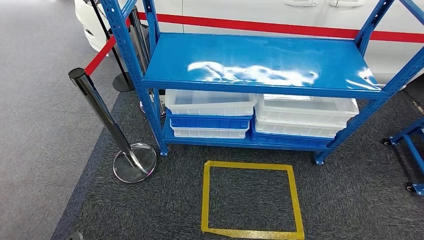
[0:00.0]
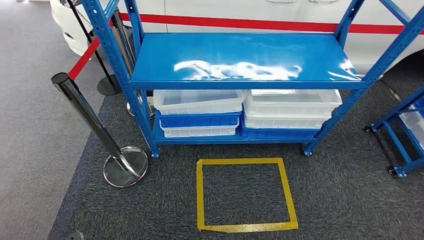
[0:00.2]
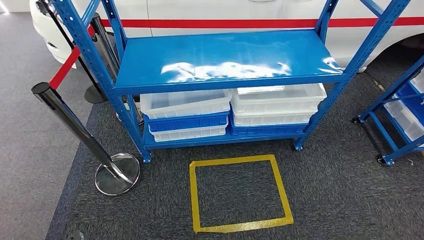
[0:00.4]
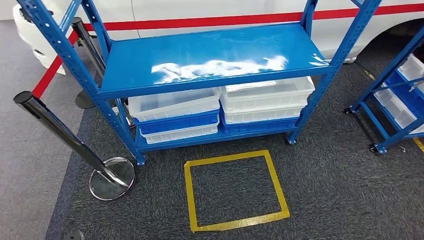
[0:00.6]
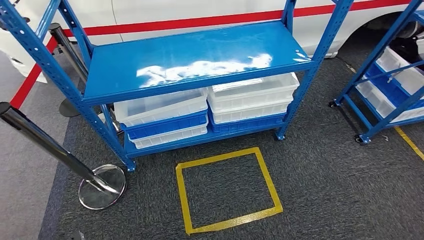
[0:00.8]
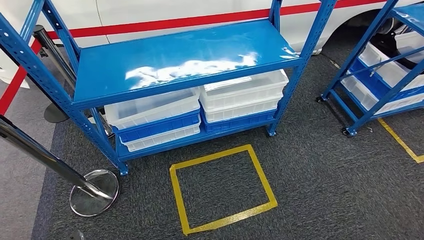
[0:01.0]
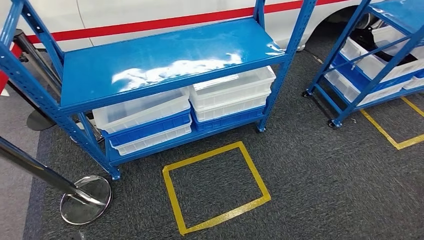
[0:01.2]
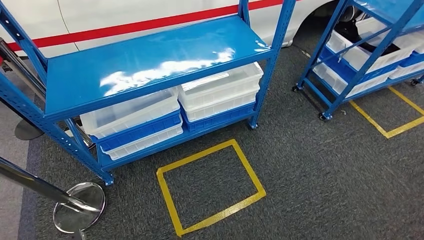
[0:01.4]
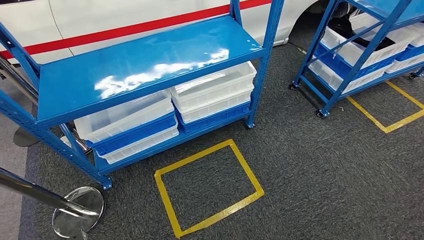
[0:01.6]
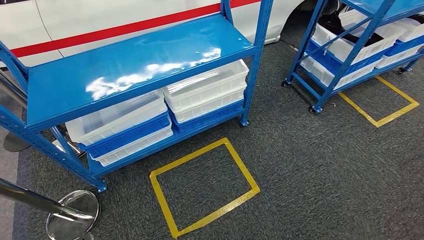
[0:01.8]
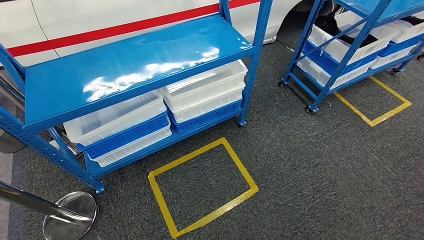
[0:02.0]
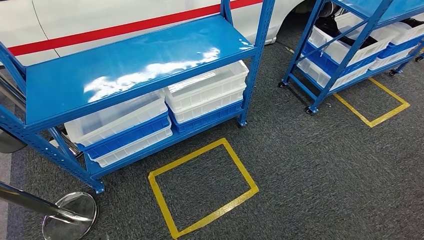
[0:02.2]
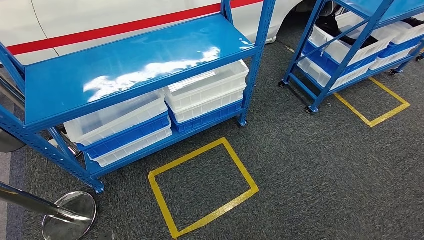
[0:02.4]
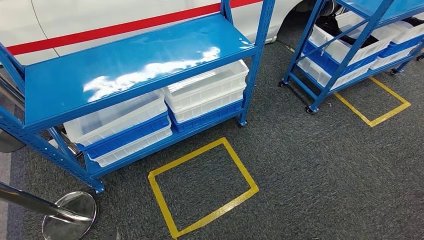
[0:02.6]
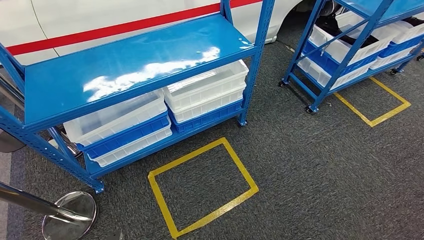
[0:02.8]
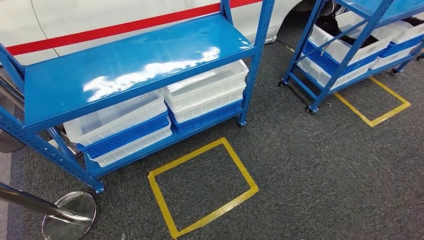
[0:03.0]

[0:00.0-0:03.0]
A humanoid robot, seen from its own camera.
Step, 0:00.0 to 0:03.0: Move to the initial position of the shelf.
